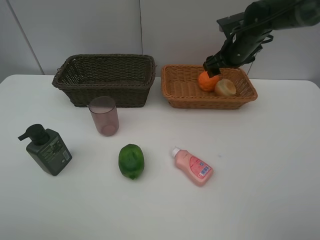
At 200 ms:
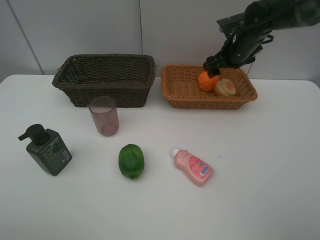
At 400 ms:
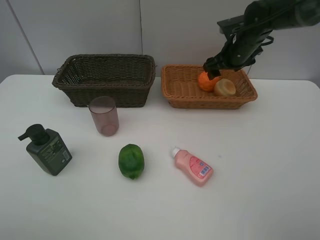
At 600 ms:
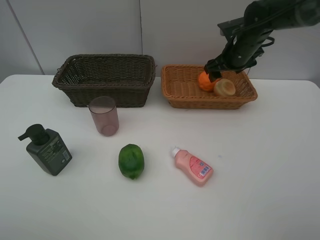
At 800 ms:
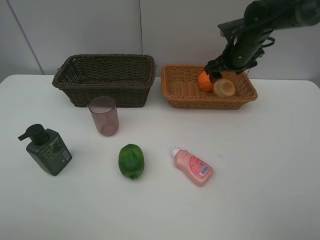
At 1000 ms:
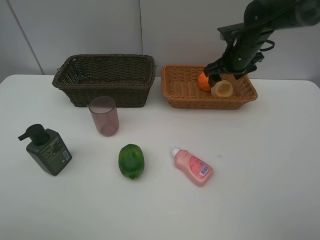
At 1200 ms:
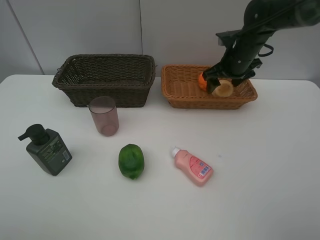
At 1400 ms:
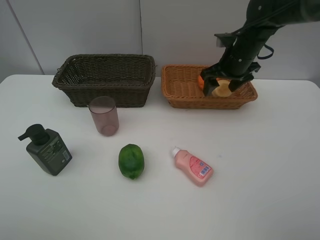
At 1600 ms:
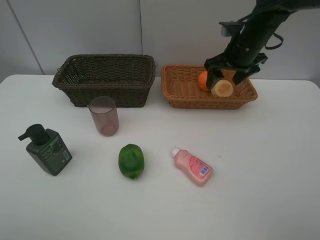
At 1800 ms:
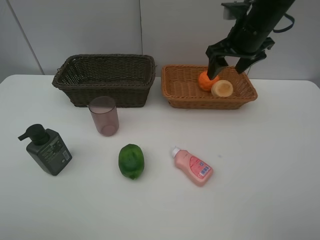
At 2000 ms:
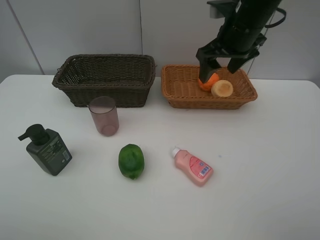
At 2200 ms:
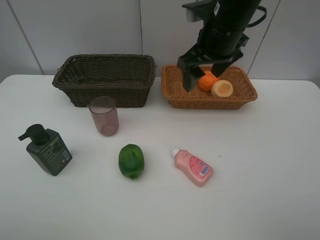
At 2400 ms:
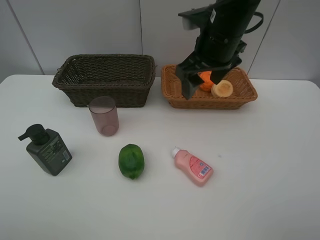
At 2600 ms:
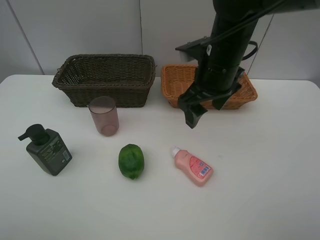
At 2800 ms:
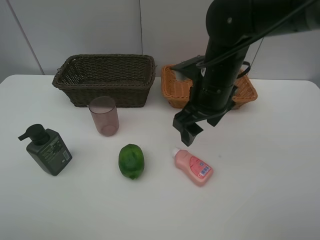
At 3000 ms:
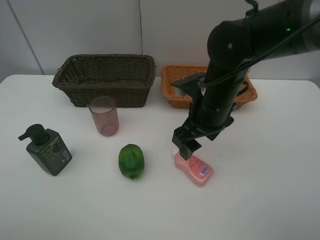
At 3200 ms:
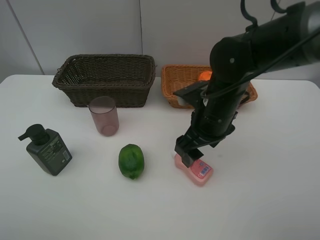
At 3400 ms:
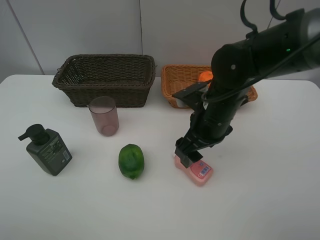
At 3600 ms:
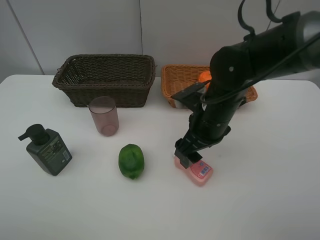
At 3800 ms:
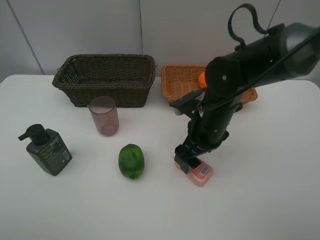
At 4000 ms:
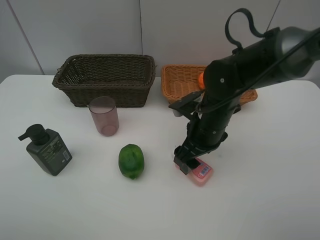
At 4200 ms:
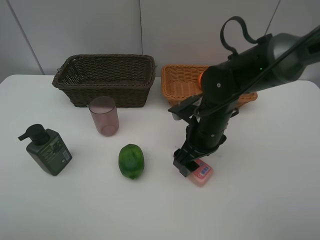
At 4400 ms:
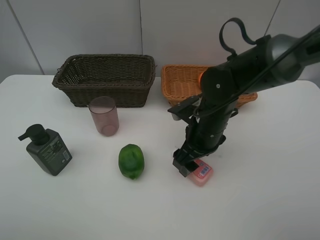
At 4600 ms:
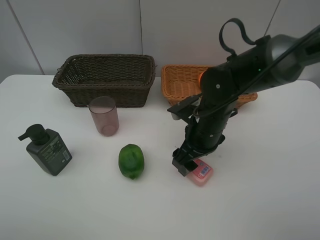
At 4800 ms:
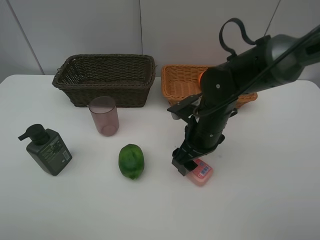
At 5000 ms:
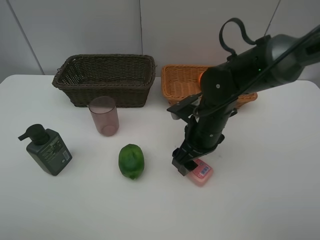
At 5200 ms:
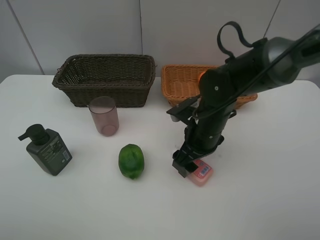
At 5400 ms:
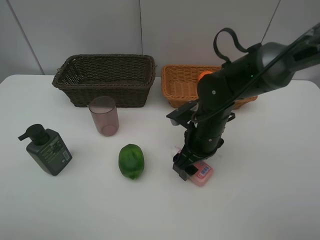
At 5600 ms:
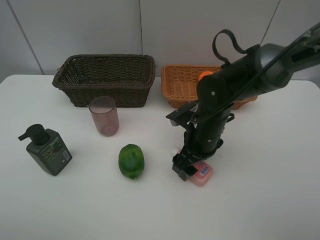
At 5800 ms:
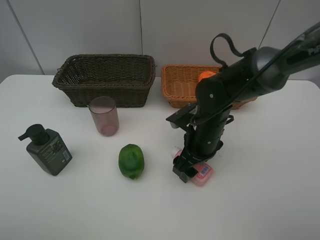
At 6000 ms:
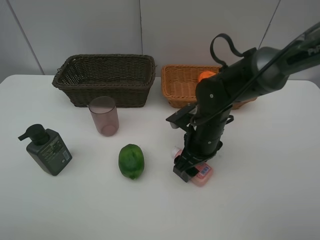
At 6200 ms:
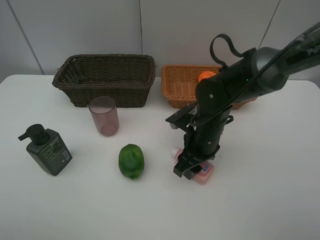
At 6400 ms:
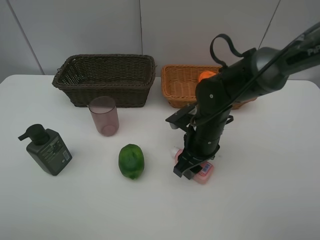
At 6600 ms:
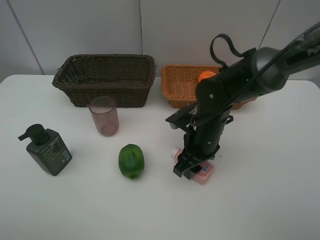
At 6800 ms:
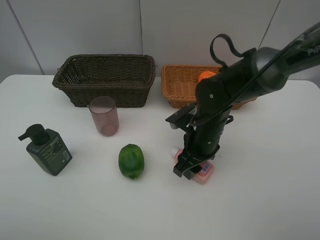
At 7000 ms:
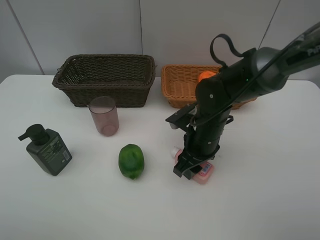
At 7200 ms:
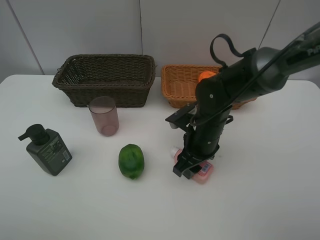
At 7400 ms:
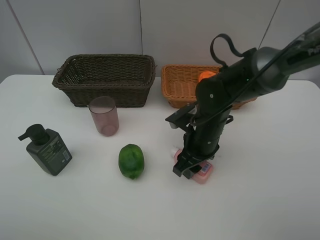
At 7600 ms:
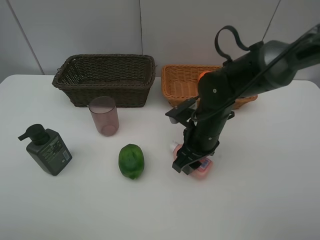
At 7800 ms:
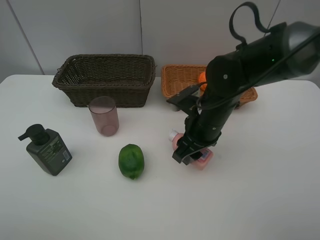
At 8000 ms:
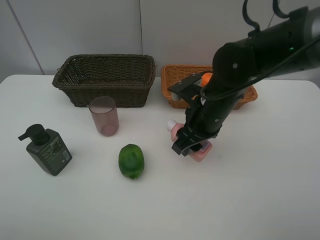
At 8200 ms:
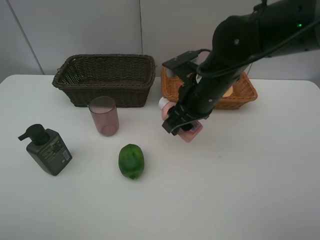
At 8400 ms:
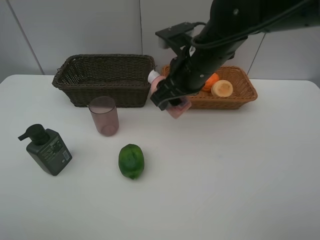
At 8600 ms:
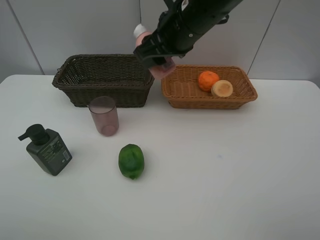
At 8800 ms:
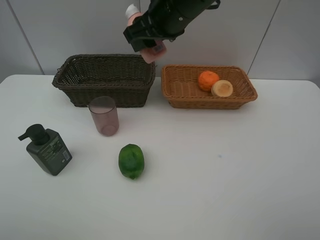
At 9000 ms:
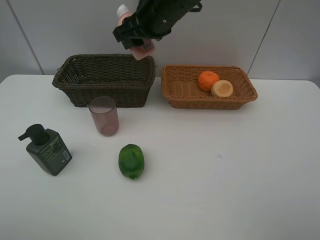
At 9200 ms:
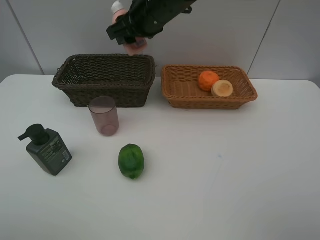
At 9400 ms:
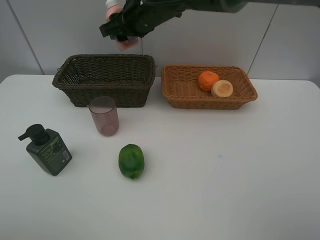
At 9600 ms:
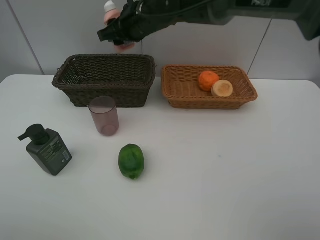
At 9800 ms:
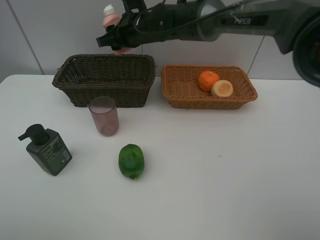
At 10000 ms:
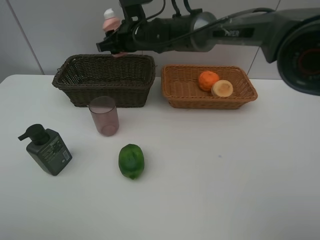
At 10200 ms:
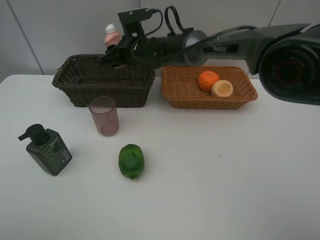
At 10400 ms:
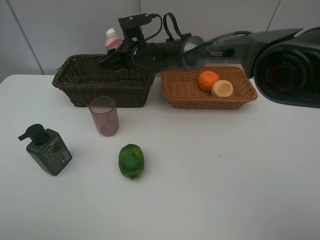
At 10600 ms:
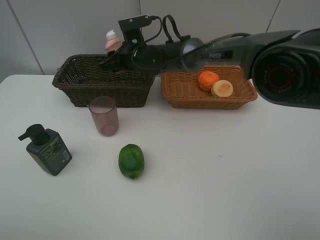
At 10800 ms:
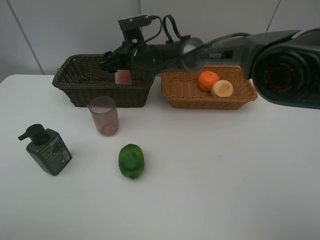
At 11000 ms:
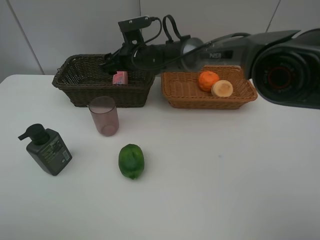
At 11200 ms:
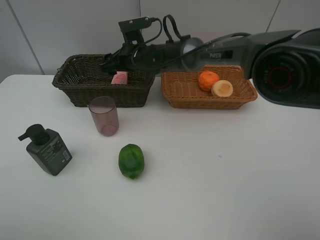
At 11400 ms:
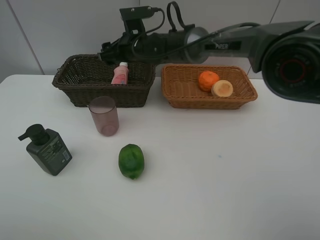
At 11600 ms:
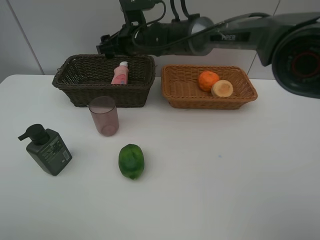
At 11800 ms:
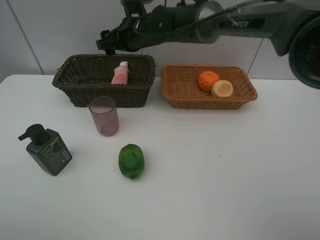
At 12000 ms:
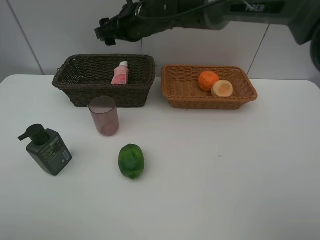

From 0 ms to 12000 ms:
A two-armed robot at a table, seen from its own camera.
Task of the whole recording: place multiple objects separately in different baskets.
From 0 ms to 1600 ms: The right gripper ends up approximately 5 cm from where it was.
From 1600 ms to 3000 ms: The right gripper shifts roughly 20 cm backward, to the left and downward.
From 3000 ms to 4400 ms: The right gripper is displaced downward by approximately 5 cm.
From 4400 ms to 6000 ms: The grippers move only a little.
From 6000 ms to 7600 ms: The right gripper closes up.
From 7600 ms to 9000 ms: The right gripper moves upward, forward and to the left, some 20 cm.
From 9000 ms to 10400 ms: The right gripper shifts approximately 15 cm downward, forward and to the left.
From 10400 ms to 12000 ms: The right gripper travels upward by approximately 10 cm, and opens up.

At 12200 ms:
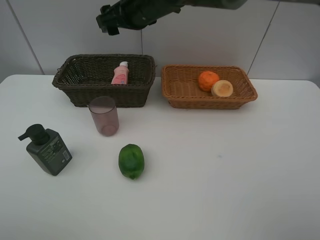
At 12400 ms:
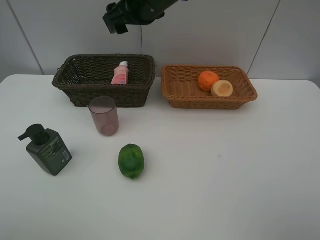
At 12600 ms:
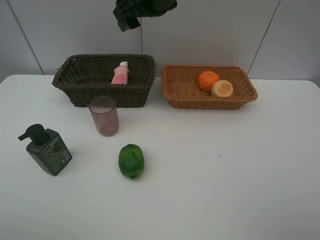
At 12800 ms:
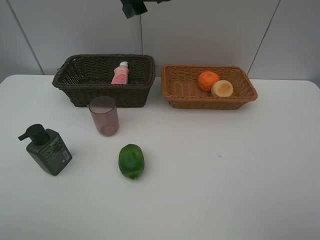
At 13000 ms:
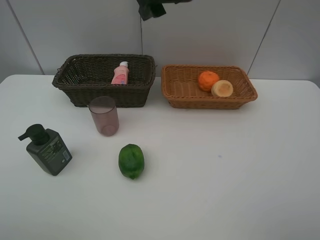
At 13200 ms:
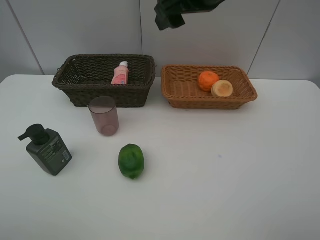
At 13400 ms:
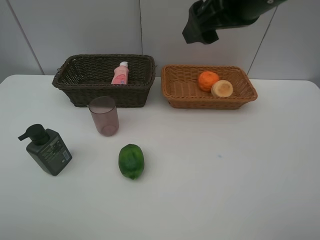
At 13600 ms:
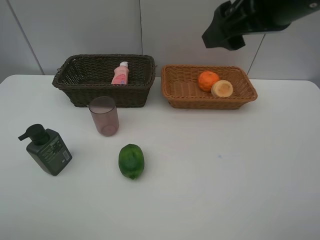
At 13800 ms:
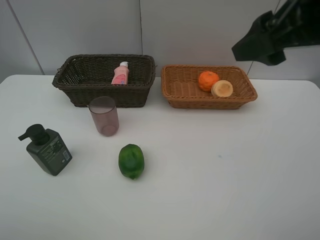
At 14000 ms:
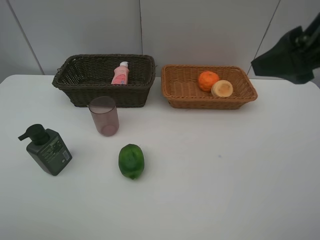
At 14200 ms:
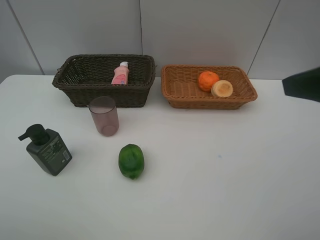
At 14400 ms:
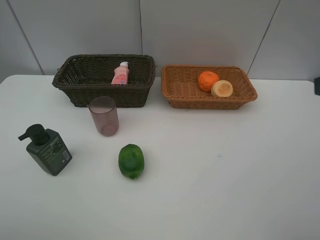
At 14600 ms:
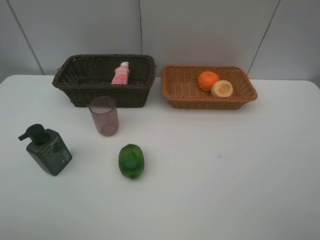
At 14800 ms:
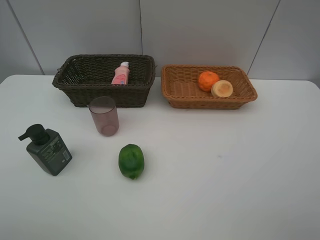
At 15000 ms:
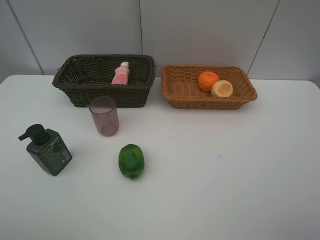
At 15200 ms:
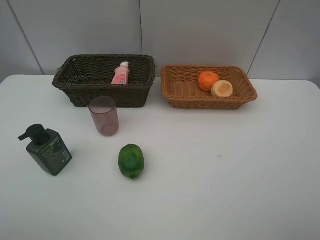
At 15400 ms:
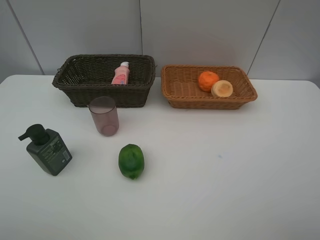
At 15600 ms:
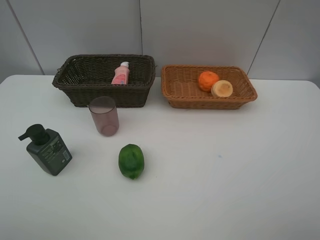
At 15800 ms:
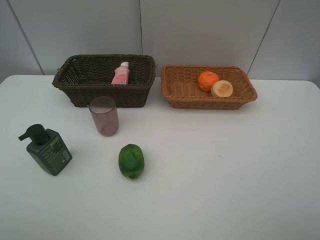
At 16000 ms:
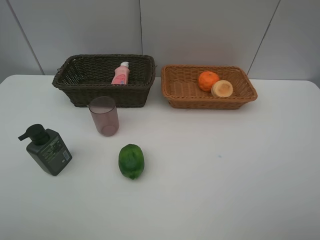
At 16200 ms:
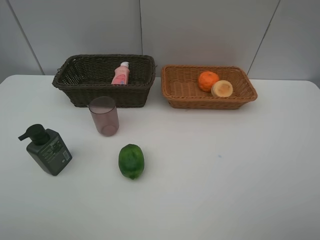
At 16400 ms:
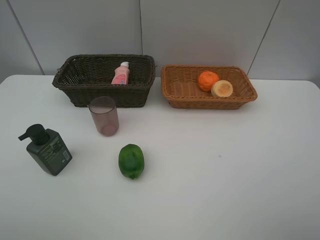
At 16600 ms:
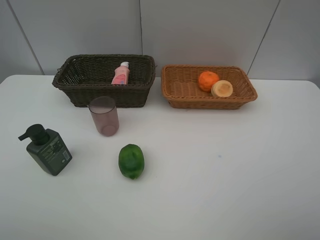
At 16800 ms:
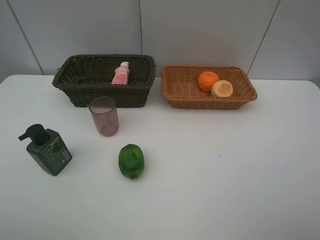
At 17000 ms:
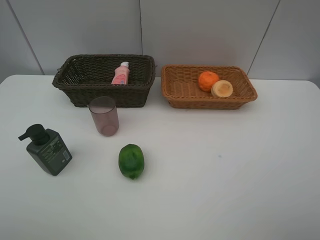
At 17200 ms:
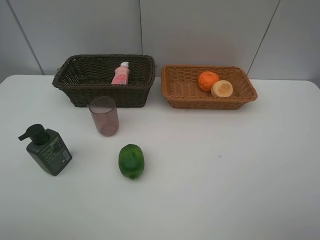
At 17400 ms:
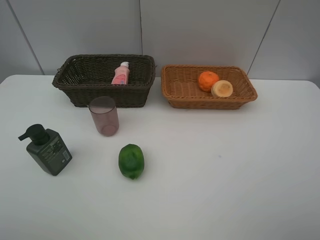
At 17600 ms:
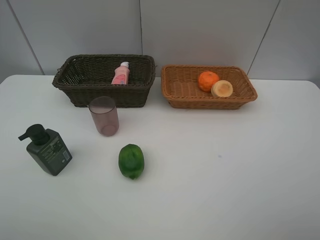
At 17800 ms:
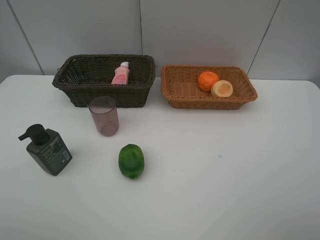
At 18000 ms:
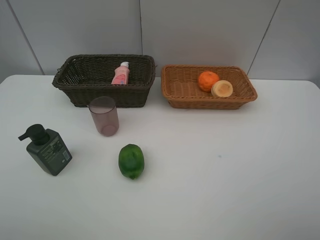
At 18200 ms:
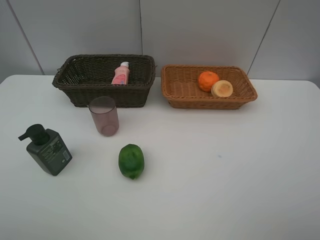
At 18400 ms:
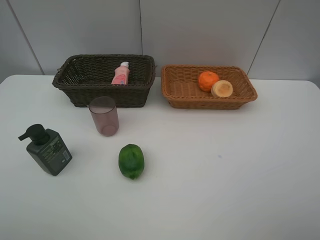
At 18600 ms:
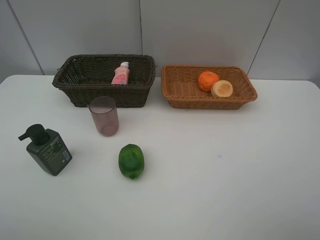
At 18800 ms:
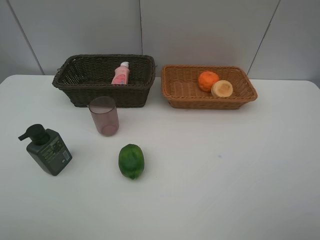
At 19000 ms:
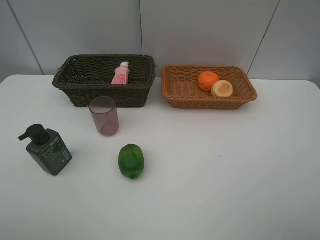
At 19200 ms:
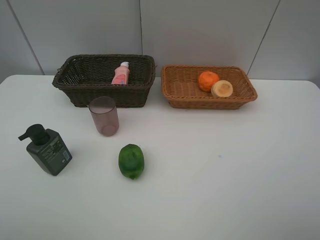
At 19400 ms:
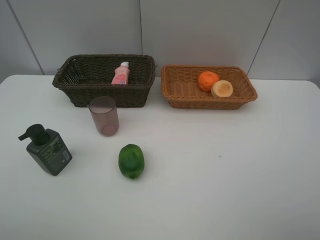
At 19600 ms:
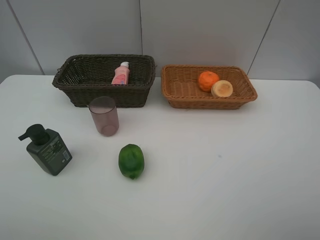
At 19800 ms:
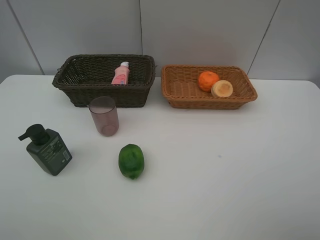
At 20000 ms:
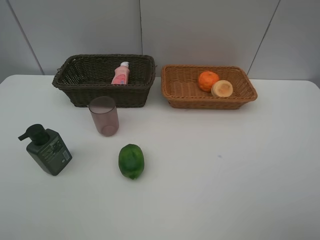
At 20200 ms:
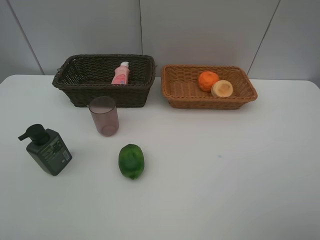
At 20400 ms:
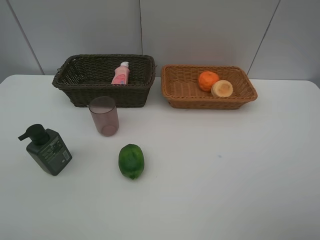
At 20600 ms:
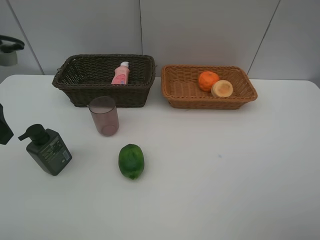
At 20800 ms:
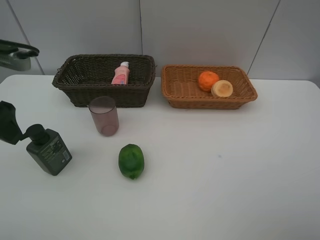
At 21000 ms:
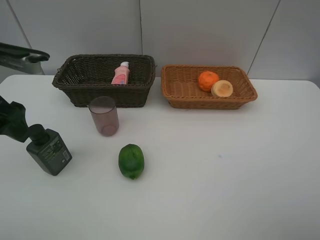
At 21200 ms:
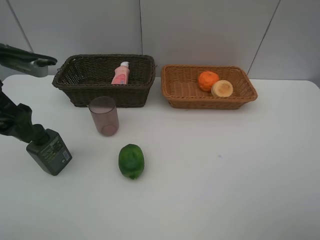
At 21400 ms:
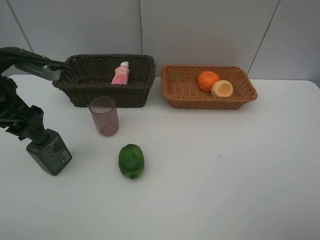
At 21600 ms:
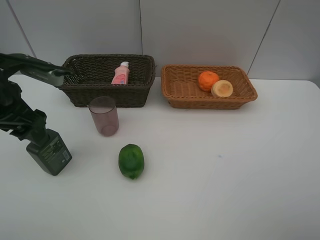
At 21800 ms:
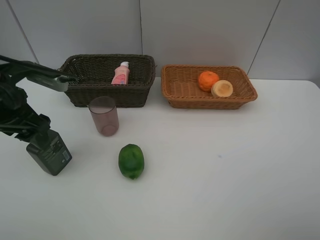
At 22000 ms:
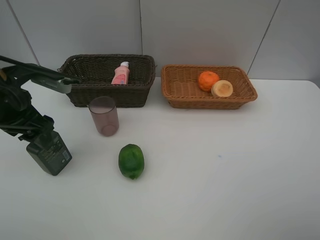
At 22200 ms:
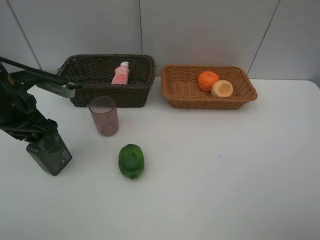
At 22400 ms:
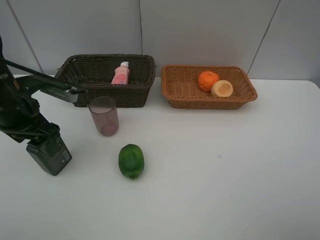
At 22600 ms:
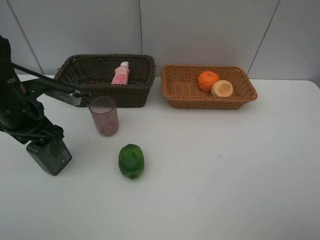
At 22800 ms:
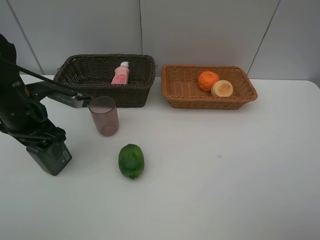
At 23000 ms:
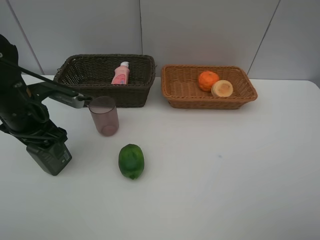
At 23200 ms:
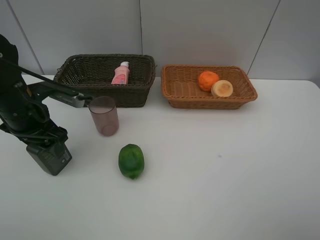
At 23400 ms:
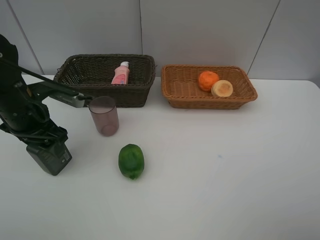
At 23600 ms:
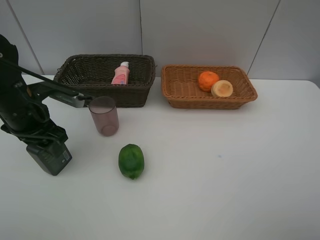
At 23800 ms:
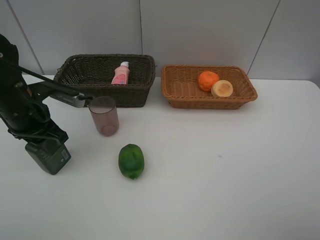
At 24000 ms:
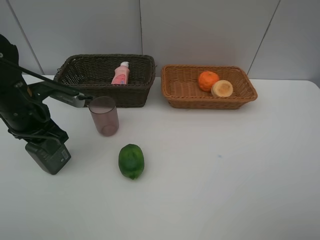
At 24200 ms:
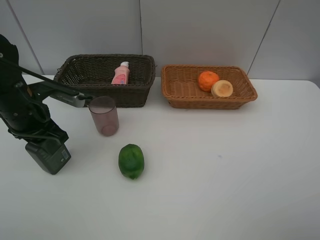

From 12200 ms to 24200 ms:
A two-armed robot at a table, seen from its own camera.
Task of the whole recording: place multiple objects separately in different baskets.
From 12200 ms to 13800 ms: The right gripper moves backward and to the right, roughly 30 cm.
From 13800 ms to 15200 ms: The right gripper moves backward and to the right, roughly 20 cm.
From 16600 ms to 18200 ms: Both grippers stay put.
From 19800 ms to 21200 ms: The left gripper is displaced forward and downward by roughly 15 cm.
From 21200 ms to 22600 ms: The left gripper goes about 10 cm downward.
From 22600 ms to 24200 ms: The left gripper closes its fingers.
